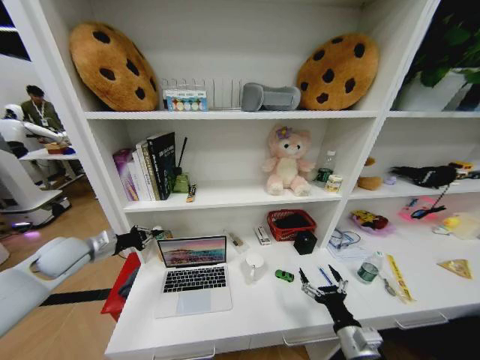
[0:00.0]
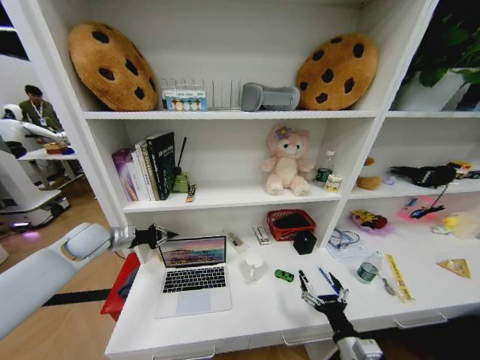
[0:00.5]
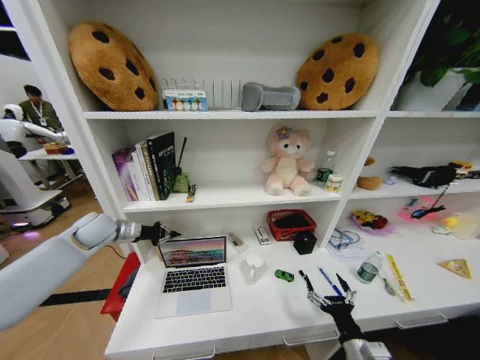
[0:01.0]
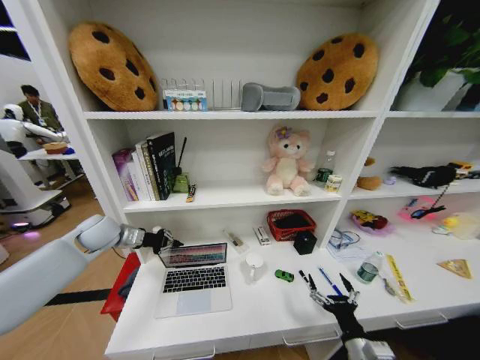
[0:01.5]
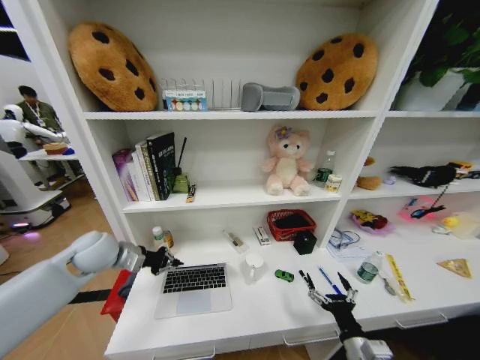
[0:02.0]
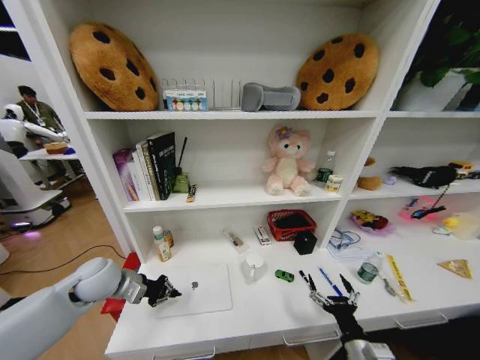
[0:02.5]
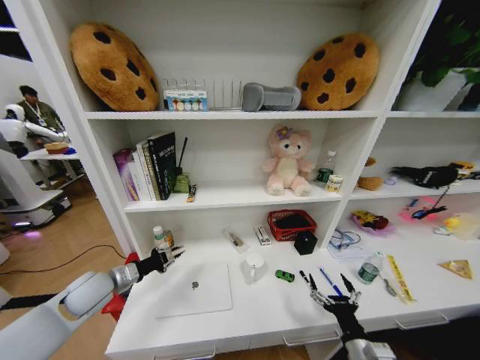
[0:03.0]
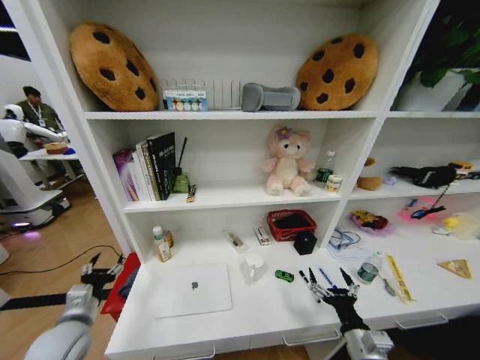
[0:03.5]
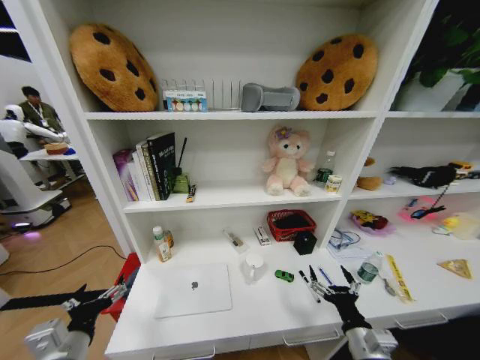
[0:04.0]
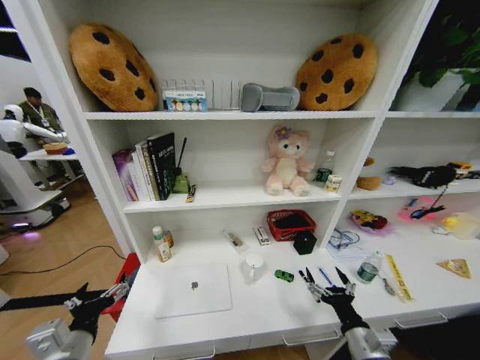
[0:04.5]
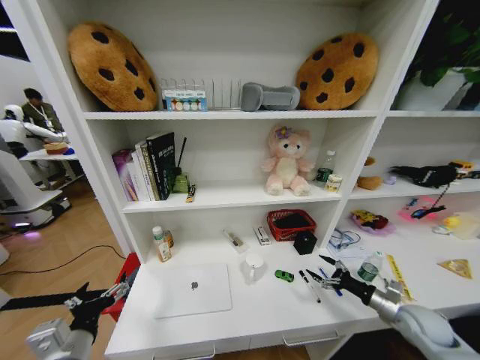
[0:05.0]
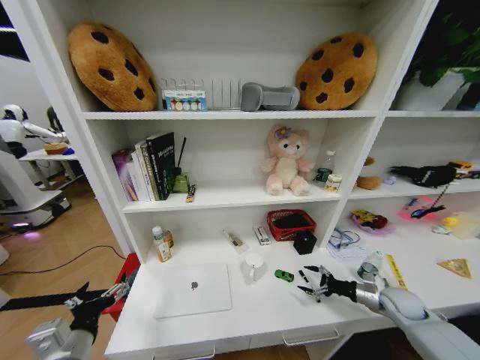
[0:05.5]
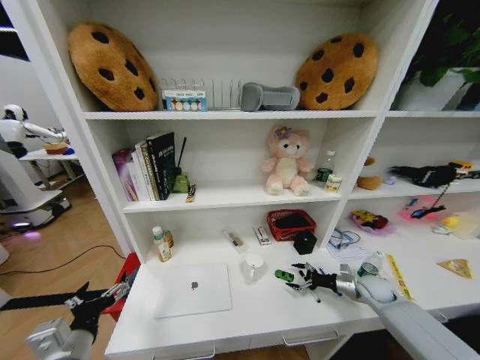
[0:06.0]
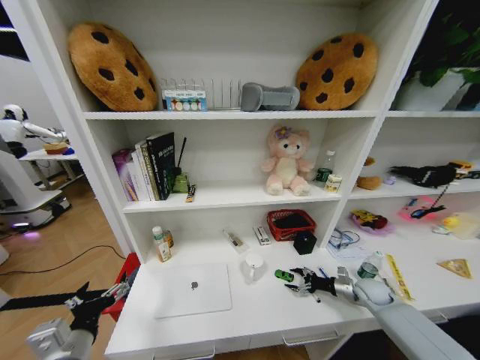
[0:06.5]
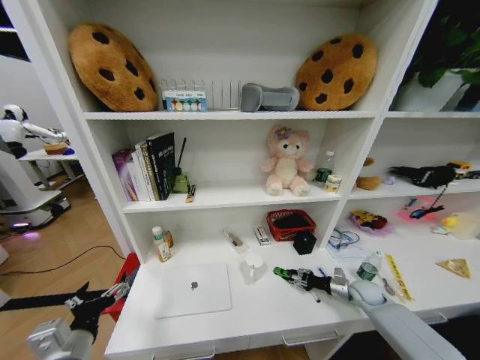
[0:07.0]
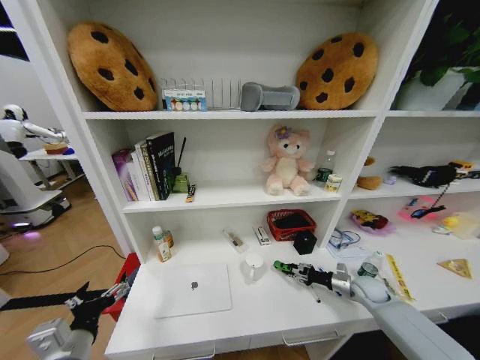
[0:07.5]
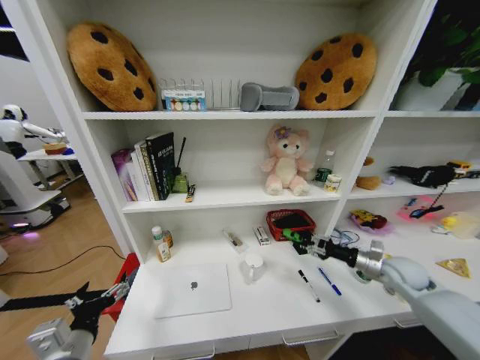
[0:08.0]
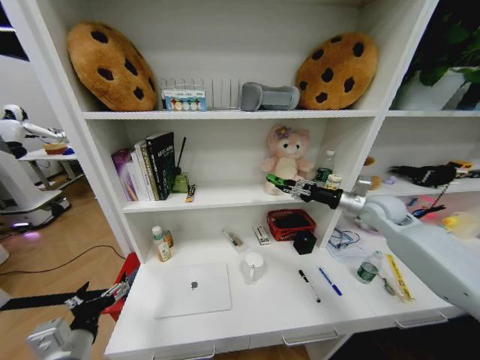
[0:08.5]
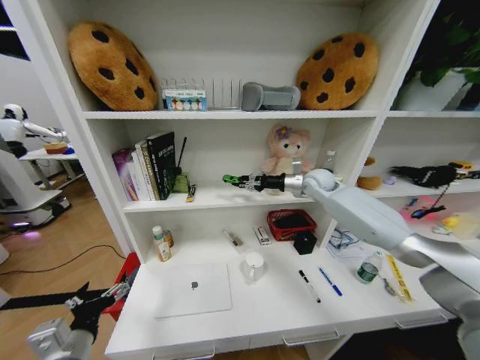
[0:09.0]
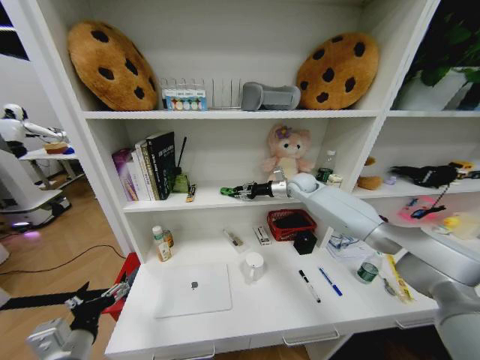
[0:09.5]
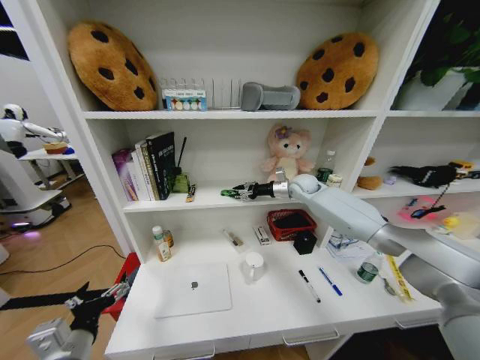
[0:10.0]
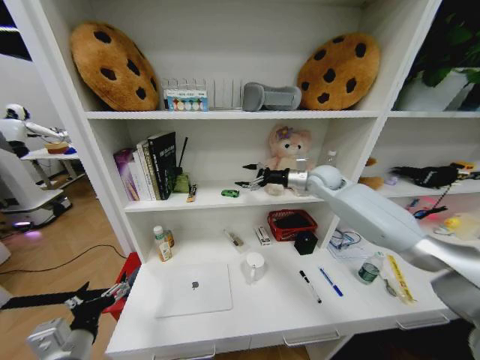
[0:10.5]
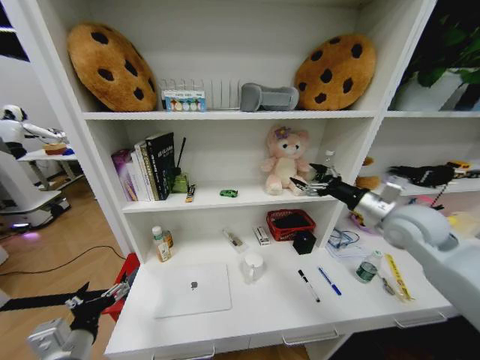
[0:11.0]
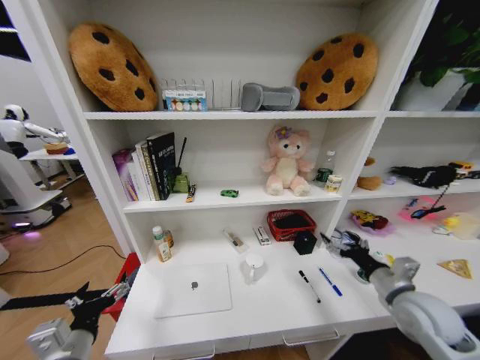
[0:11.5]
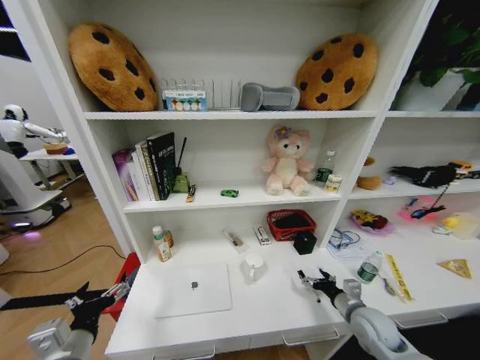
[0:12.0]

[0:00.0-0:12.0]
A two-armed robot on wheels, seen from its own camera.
Task of the whole recording: Organize the objects on the table.
0:00.0 to 0:02.0: The left gripper heads to the right, covering some 5 cm, and reaches approximately 10 cm forward, then returns.
0:02.0 to 0:04.0: The left gripper heads backward, covering approximately 25 cm, and opens its fingers.
0:04.0 to 0:06.0: The right gripper shifts about 30 cm forward and to the right.
0:06.0 to 0:08.0: The right gripper goes approximately 15 cm upward, and closes up.
0:08.0 to 0:10.0: The right gripper heads forward, to the left and upward, covering some 35 cm.
0:10.0 to 0:12.0: The right gripper shifts about 40 cm backward and downward, and opens.

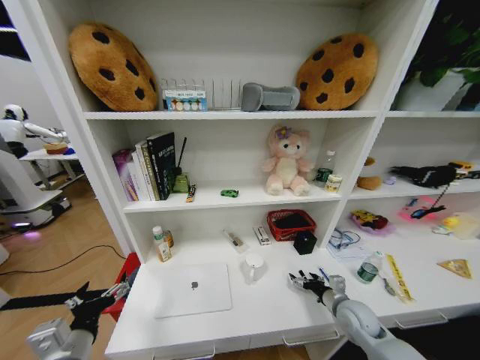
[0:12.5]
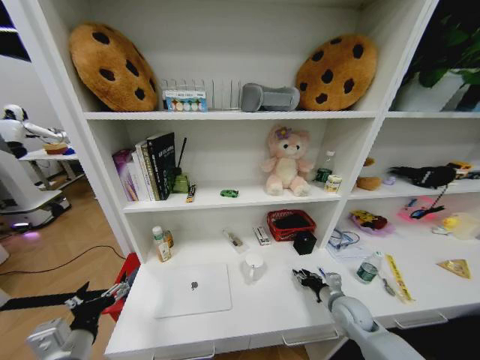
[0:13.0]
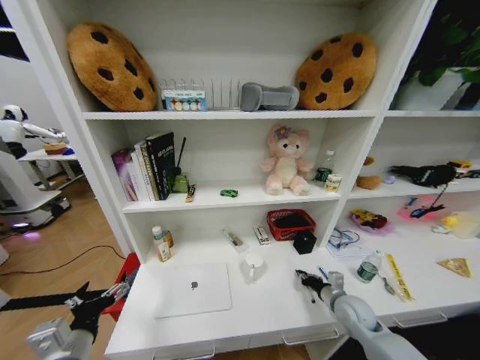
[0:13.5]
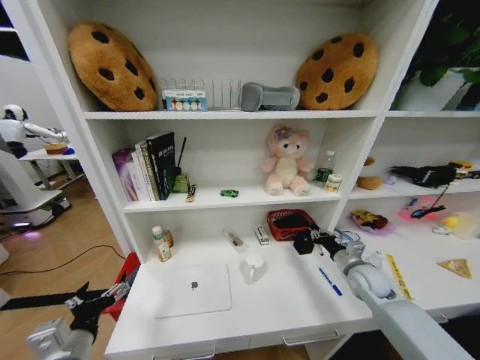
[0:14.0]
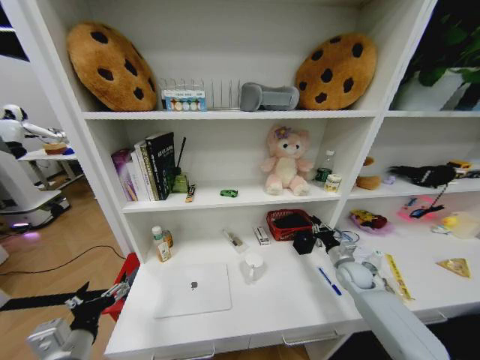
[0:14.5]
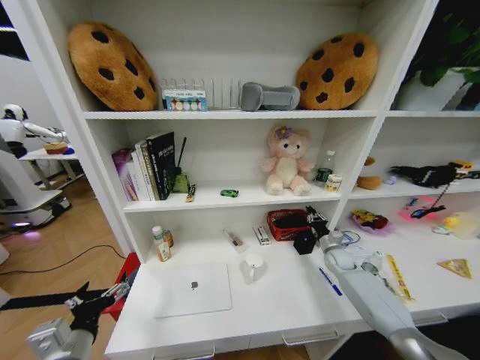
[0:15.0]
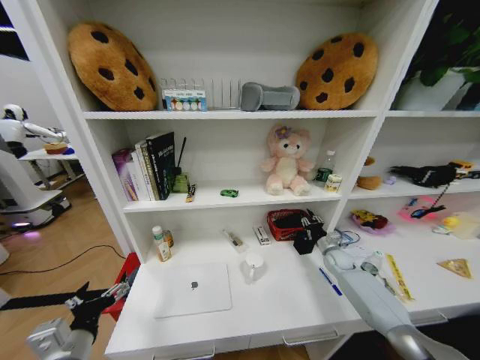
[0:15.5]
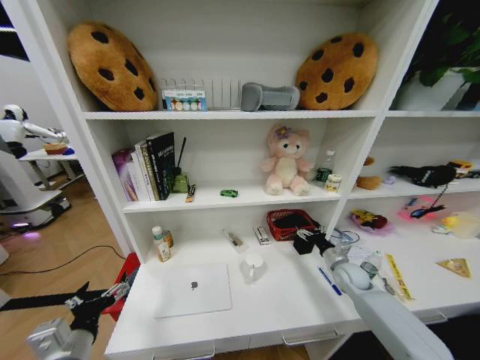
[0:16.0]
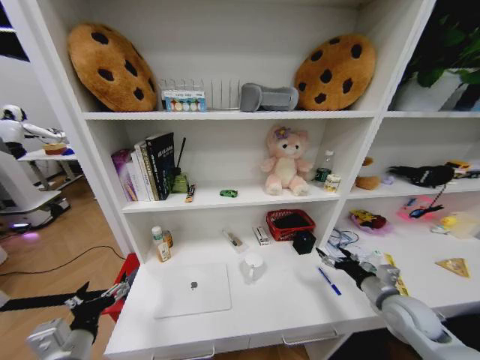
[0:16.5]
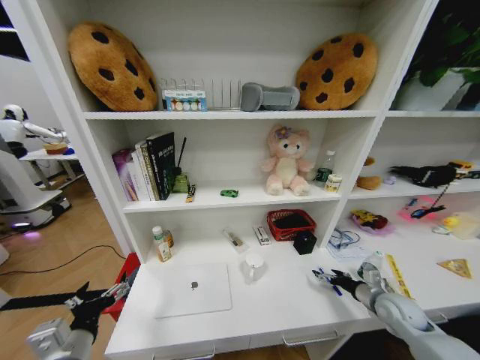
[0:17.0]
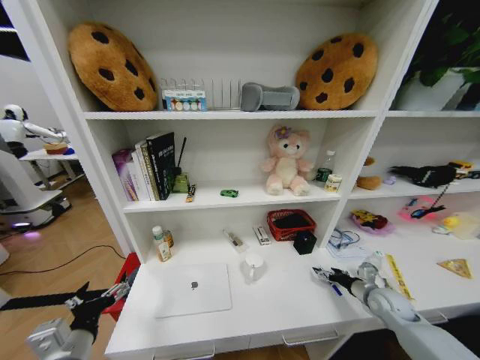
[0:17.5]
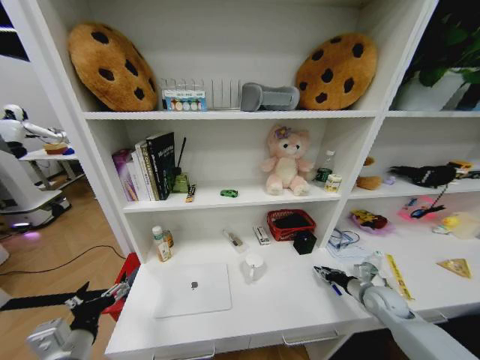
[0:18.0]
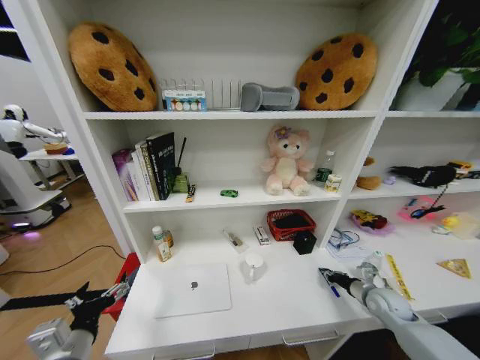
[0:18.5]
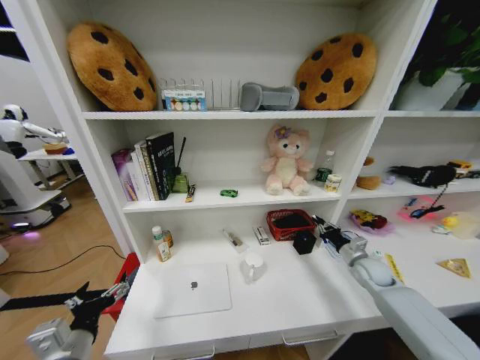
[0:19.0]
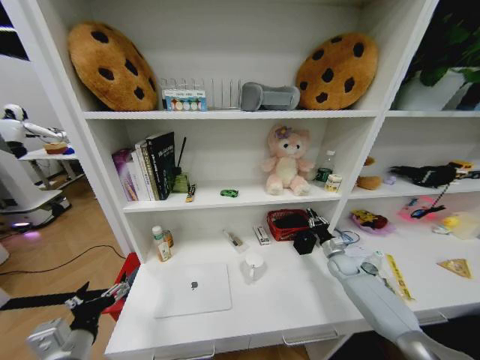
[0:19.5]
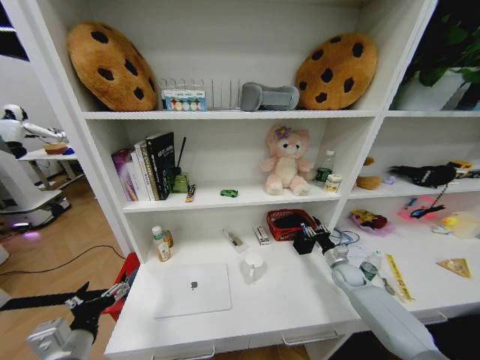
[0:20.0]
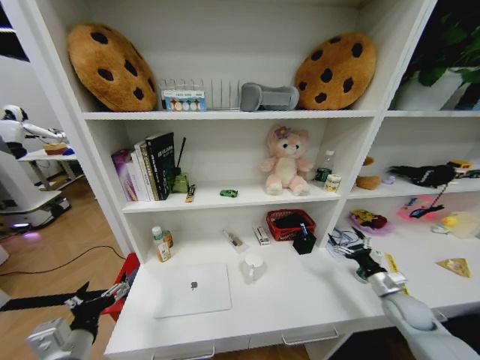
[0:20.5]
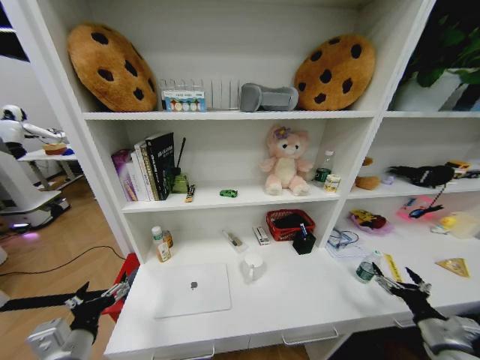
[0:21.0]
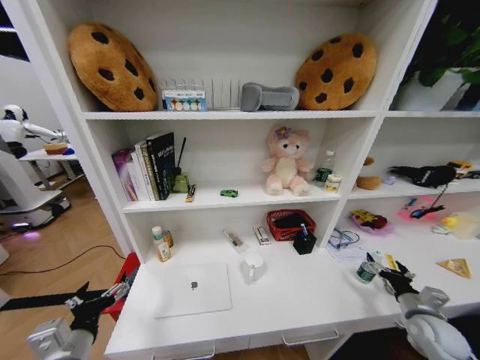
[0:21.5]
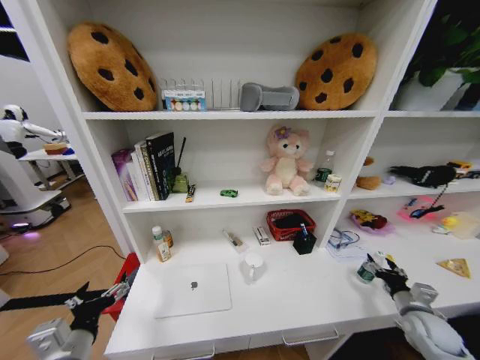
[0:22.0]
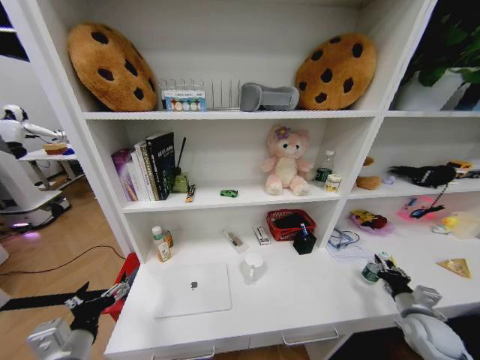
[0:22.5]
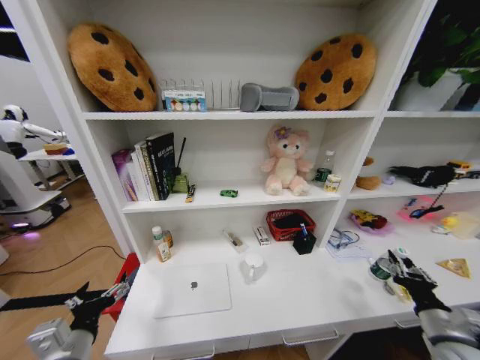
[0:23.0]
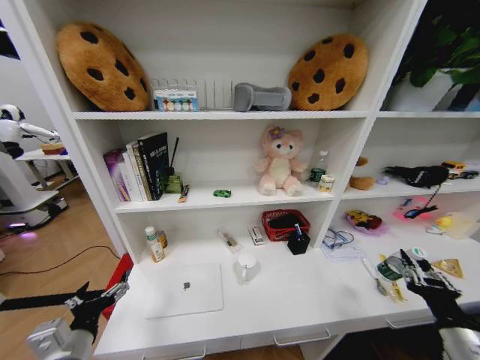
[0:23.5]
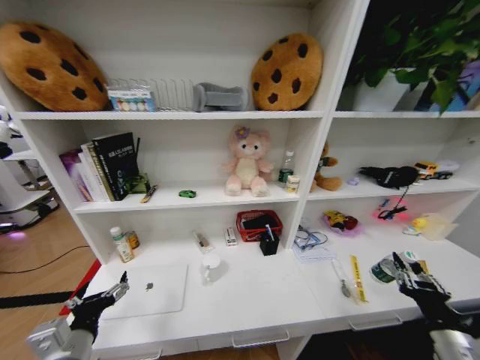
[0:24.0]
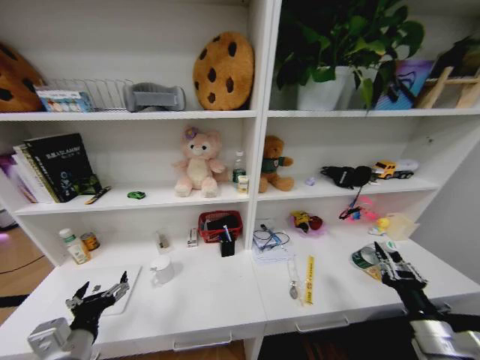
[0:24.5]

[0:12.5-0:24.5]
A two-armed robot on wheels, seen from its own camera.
Task of the whole recording: Organize the objects on the table.
0:12.5 to 0:14.5: The right gripper travels forward and to the right by about 15 cm, and closes.
0:14.5 to 0:16.5: The right gripper is displaced backward and upward by some 15 cm, and opens up.
0:16.5 to 0:18.5: The right gripper heads downward and forward, covering about 10 cm, and closes.
0:18.5 to 0:20.5: The right gripper travels forward and back again, about 15 cm each way, and opens its fingers.
0:20.5 to 0:22.5: The right gripper goes some 5 cm backward, and closes.
0:22.5 to 0:24.5: The right gripper shifts some 15 cm to the left, backward and upward.

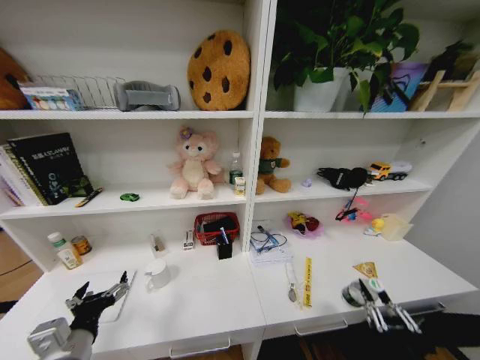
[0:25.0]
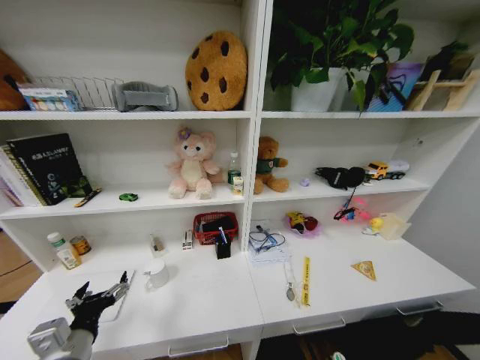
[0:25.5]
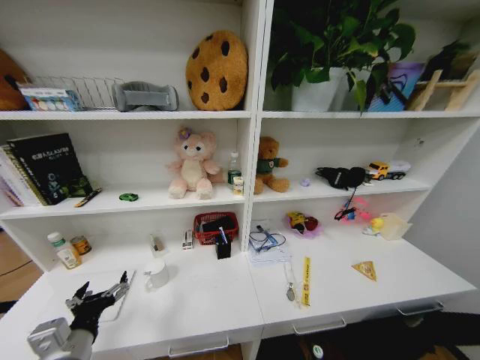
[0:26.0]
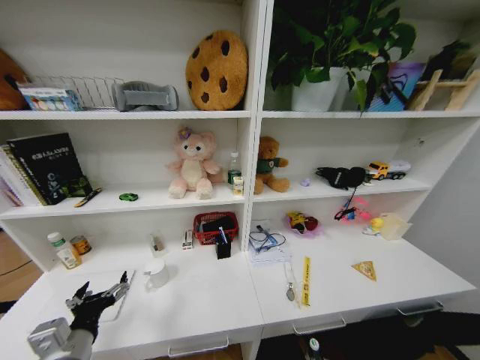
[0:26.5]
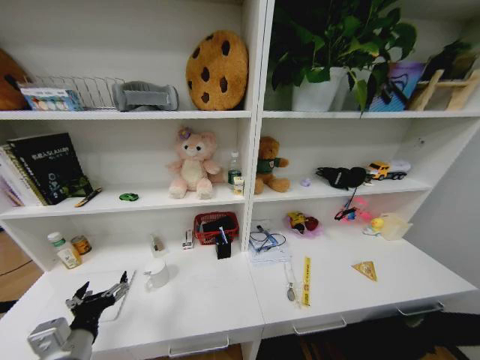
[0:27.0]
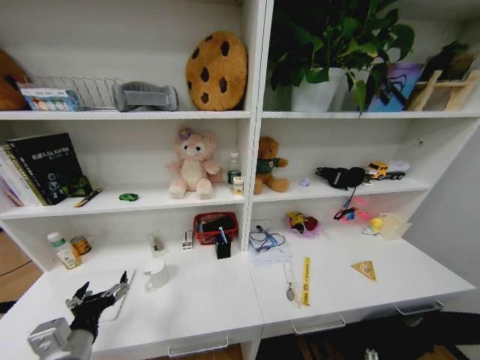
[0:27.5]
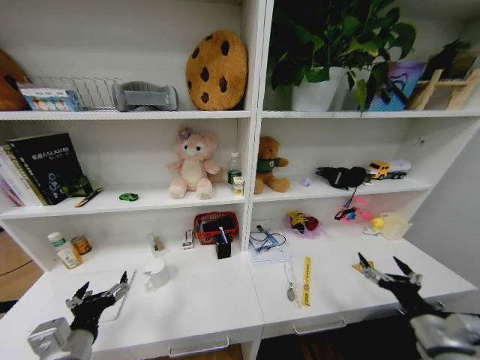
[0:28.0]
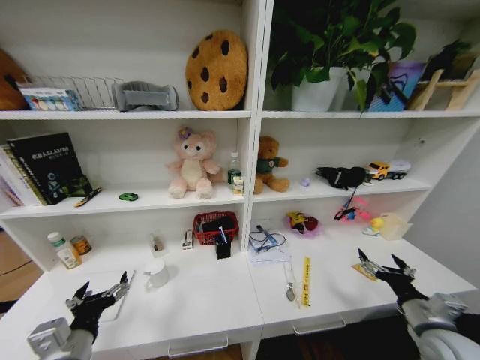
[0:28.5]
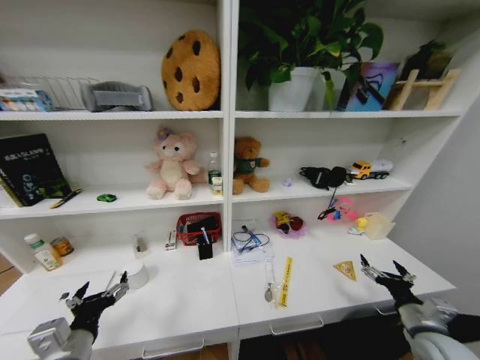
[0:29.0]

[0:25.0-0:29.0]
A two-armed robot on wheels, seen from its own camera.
Task of the whole recording: Organize the objects on the table.
0:25.0 to 0:27.0: The right gripper travels downward by about 25 cm, and opens up.
0:27.0 to 0:29.0: The right gripper goes about 35 cm upward, forward and to the right.
